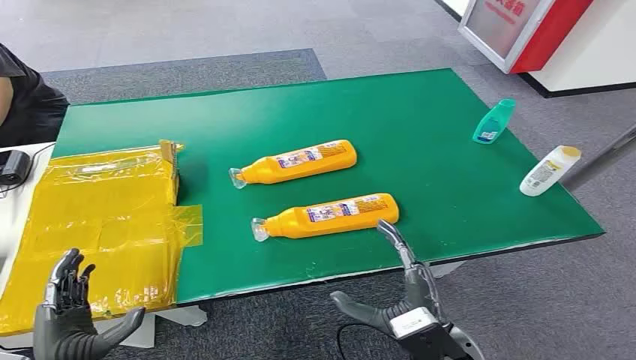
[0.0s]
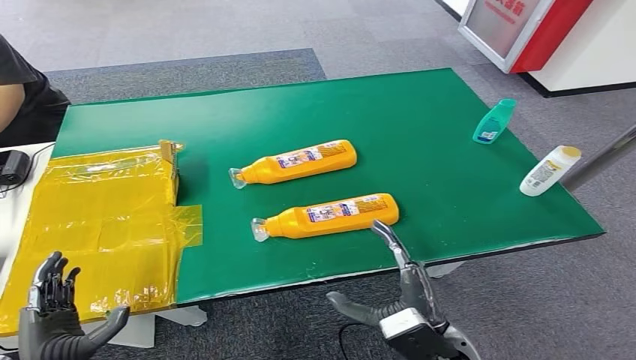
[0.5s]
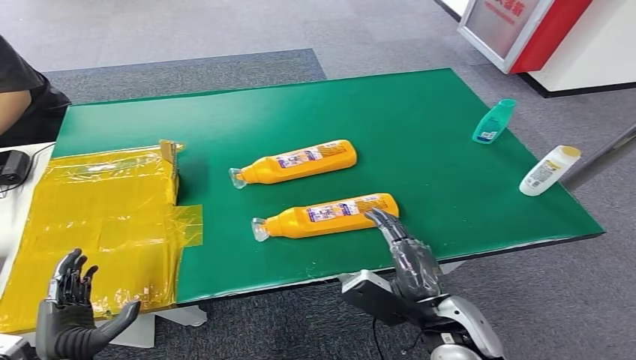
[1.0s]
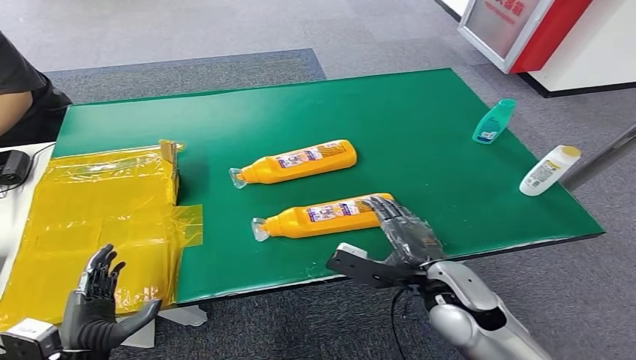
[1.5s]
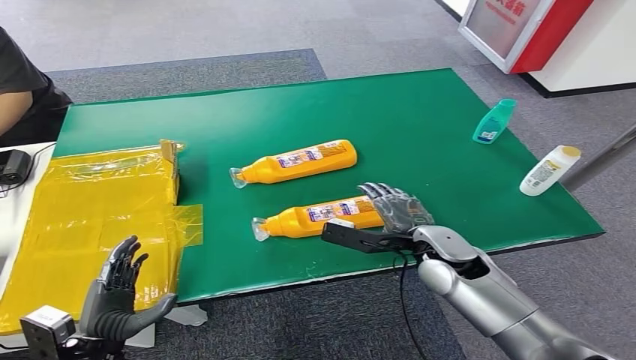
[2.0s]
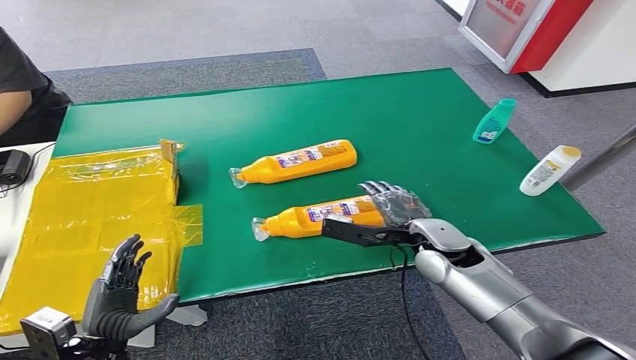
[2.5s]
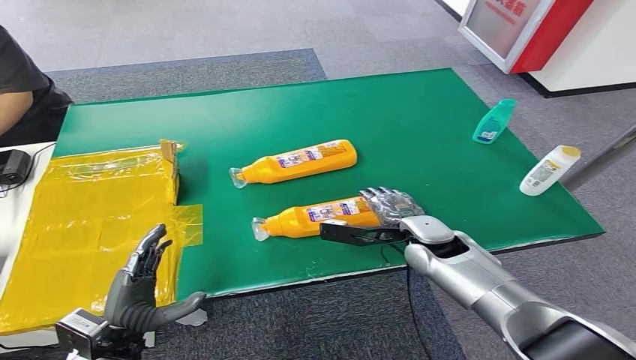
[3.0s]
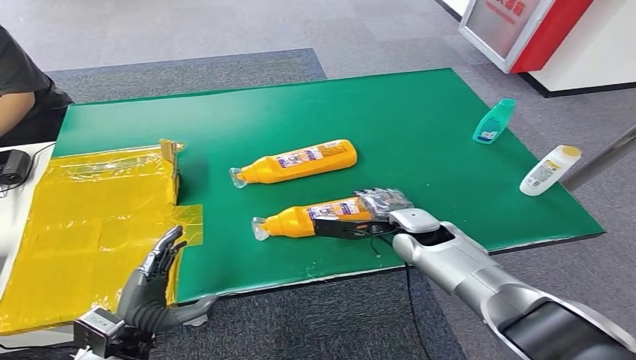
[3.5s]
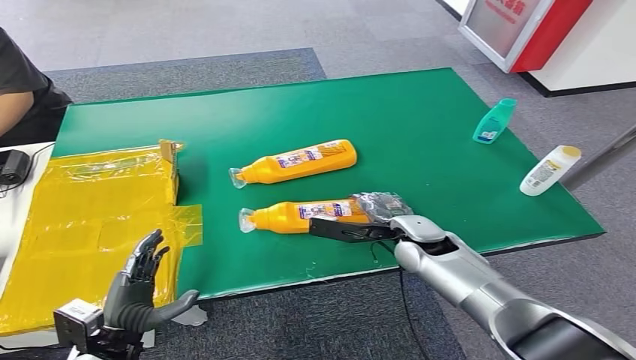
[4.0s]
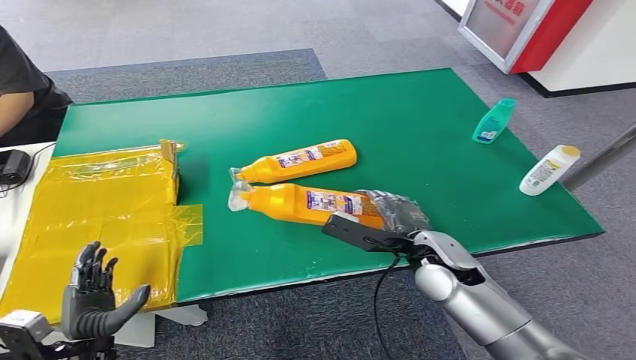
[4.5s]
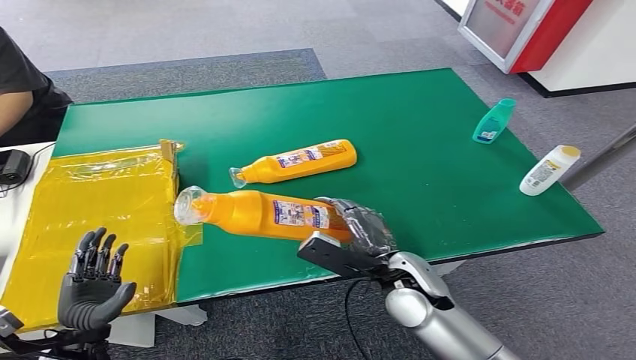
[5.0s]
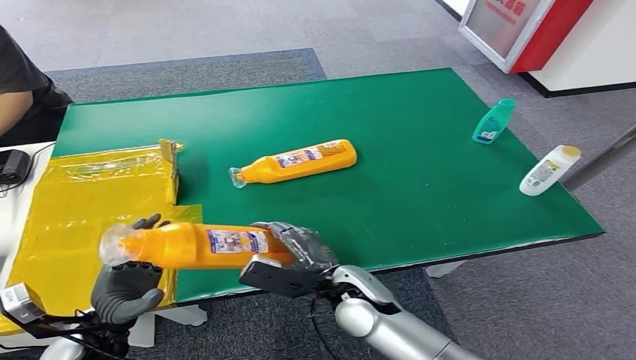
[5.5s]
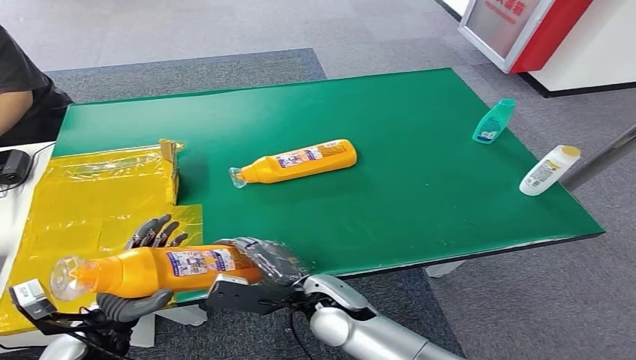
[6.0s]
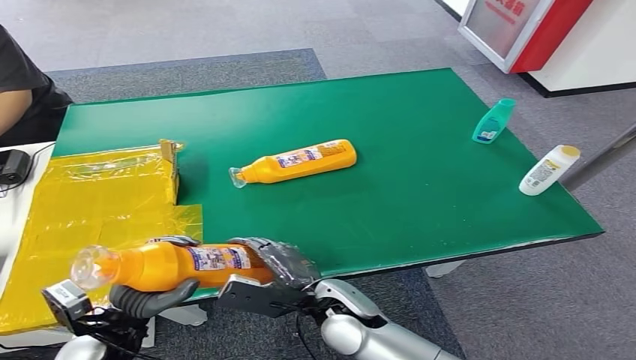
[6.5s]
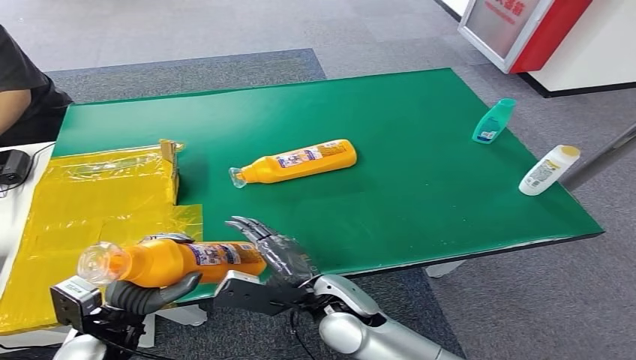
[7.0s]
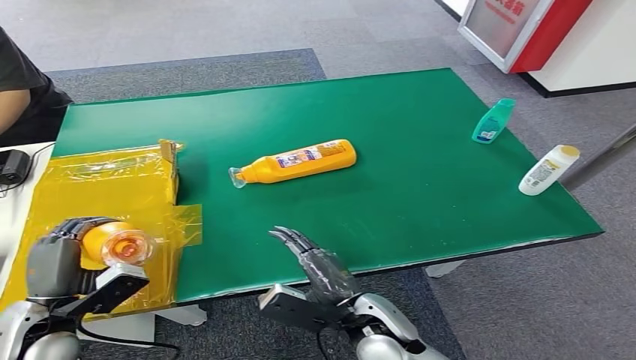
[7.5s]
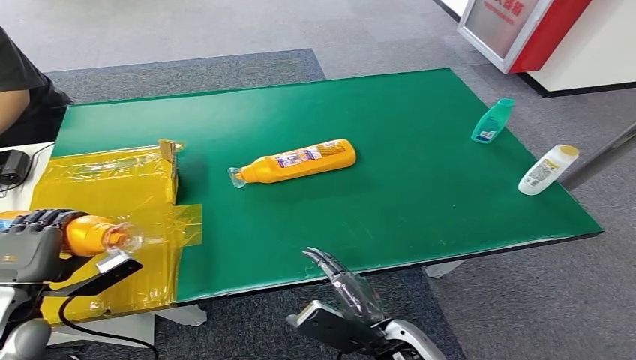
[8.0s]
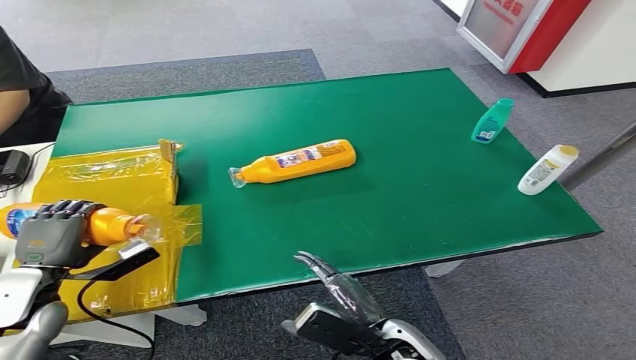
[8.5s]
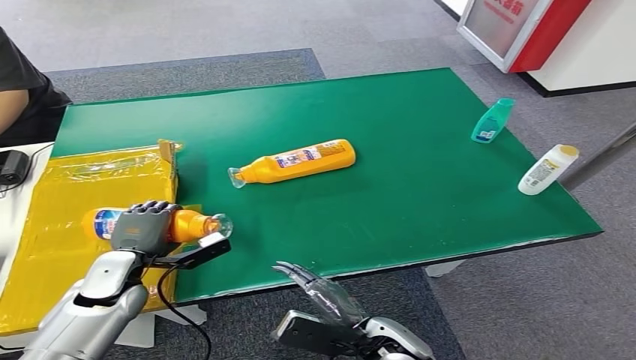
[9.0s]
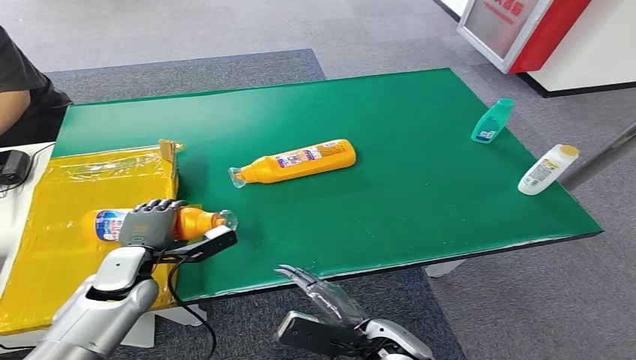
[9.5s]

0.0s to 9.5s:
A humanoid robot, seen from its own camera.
Step, 0.0s to 5.0s: Pick up the bottle from the table.
Step, 5.5s to 9.5s: Turn the bottle to the front side.
2.0s to 4.0s: The right hand ends up some 5 cm from where it was.
4.0s to 5.5s: The right hand goes about 15 cm to the left and backward.
5.5s to 7.5s: The left hand travels upward by about 5 cm; the right hand is displaced backward by approximately 5 cm.
7.5s to 9.5s: The right hand changes place by about 5 cm. The left hand goes about 10 cm forward and to the right.
